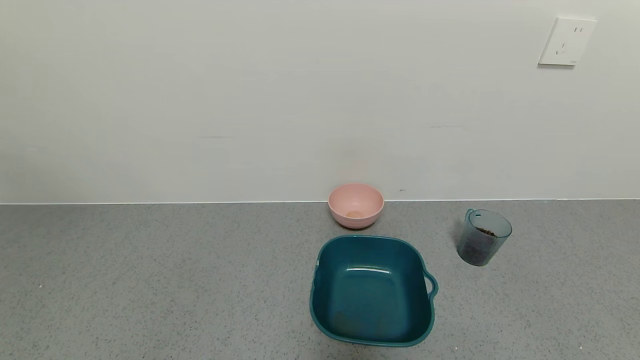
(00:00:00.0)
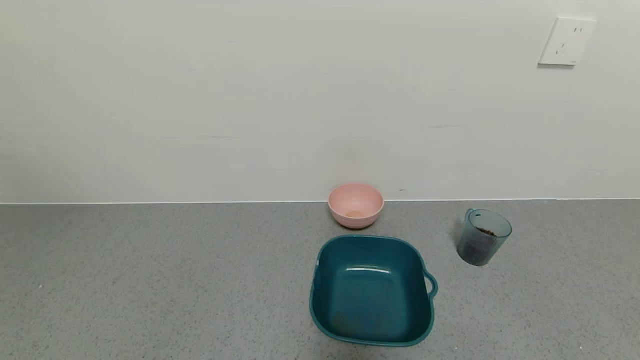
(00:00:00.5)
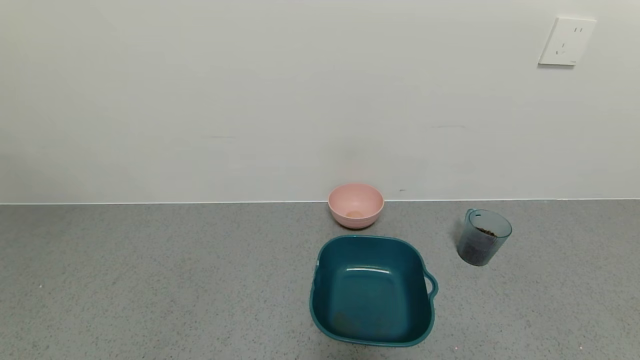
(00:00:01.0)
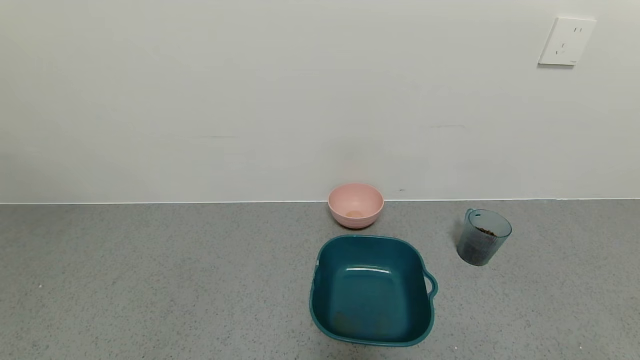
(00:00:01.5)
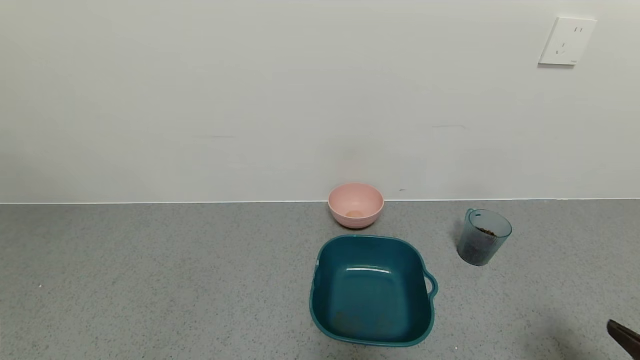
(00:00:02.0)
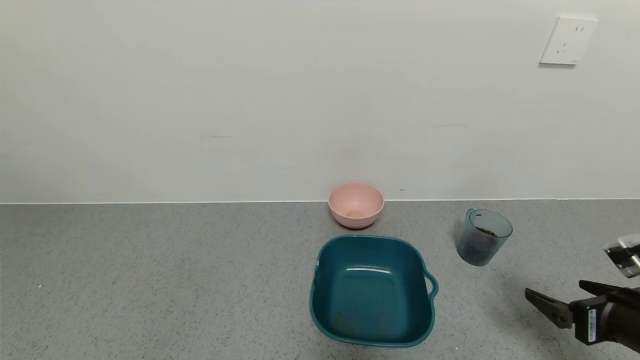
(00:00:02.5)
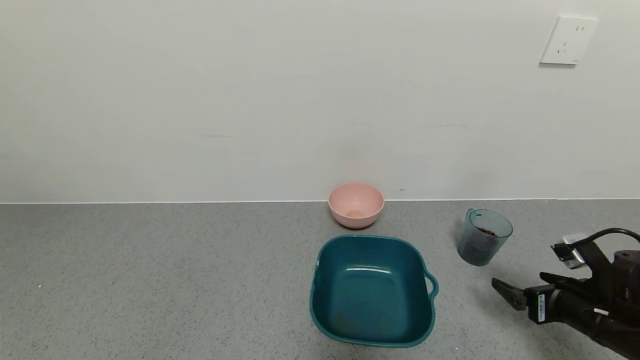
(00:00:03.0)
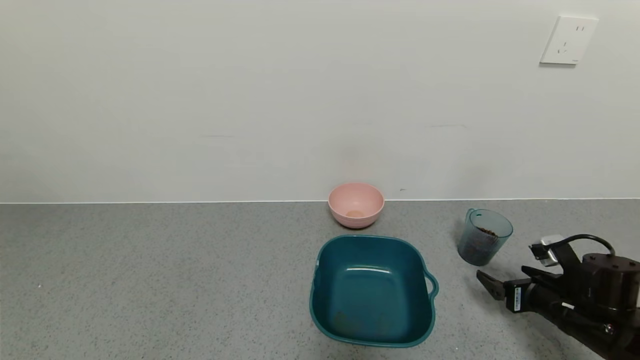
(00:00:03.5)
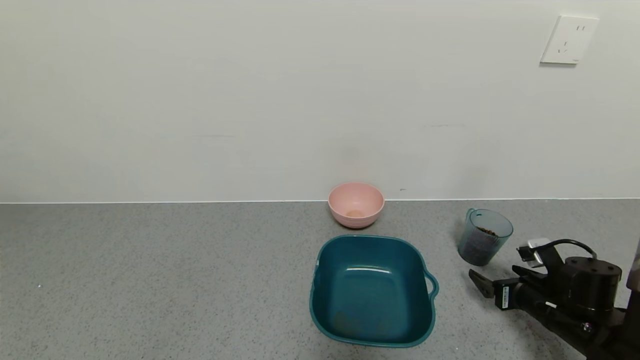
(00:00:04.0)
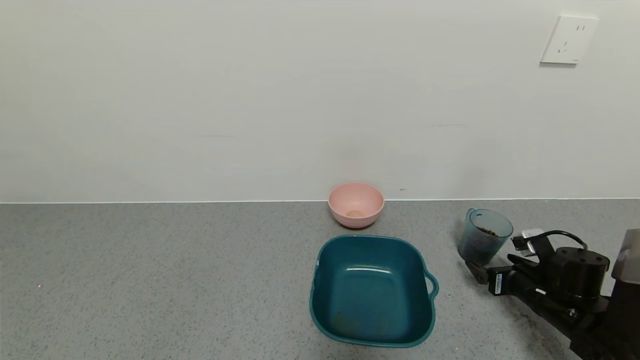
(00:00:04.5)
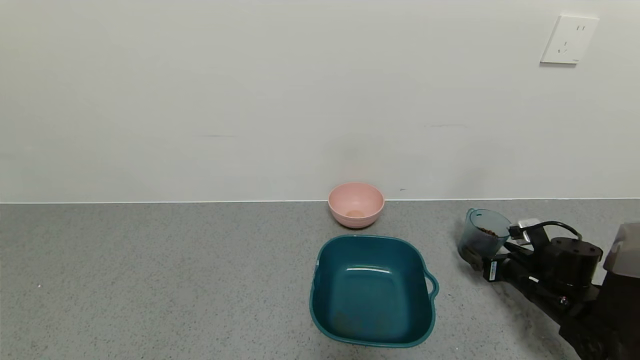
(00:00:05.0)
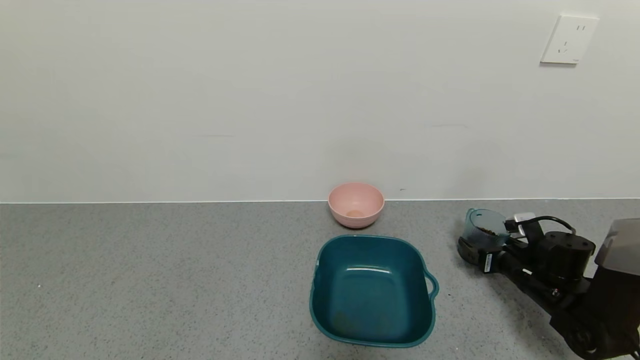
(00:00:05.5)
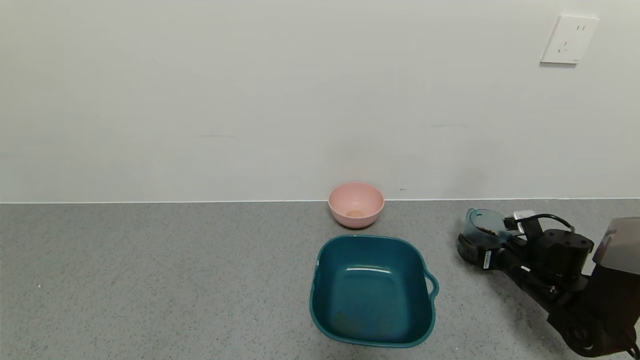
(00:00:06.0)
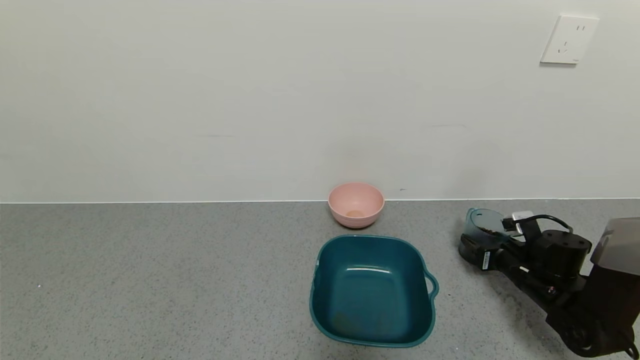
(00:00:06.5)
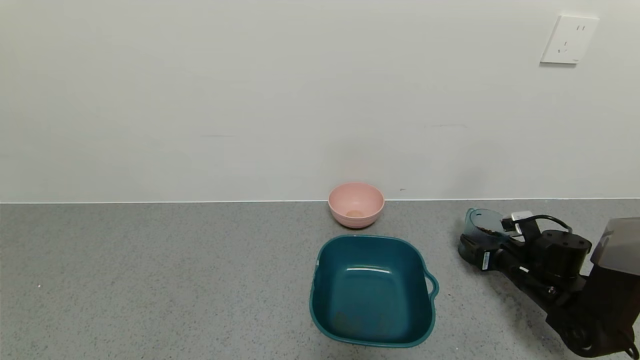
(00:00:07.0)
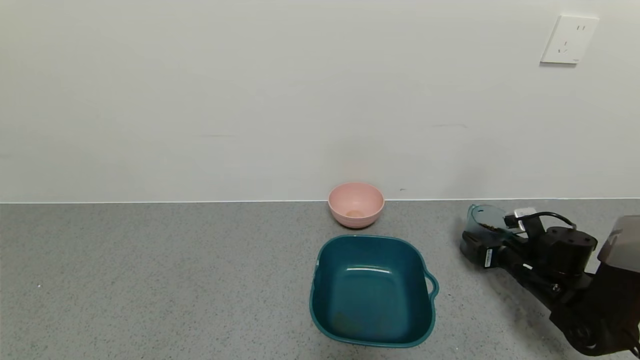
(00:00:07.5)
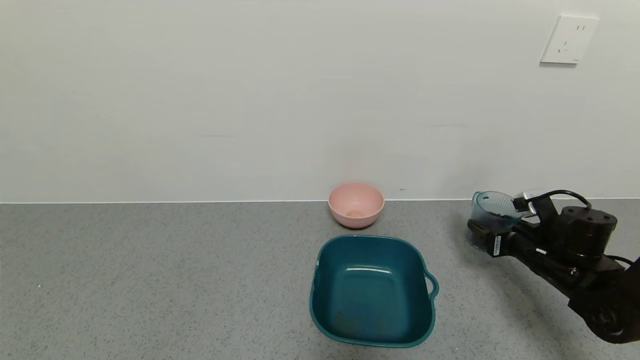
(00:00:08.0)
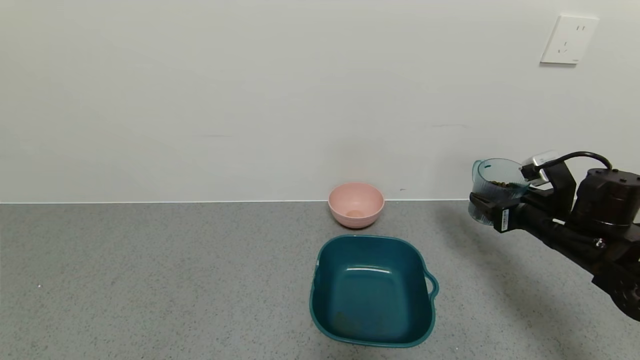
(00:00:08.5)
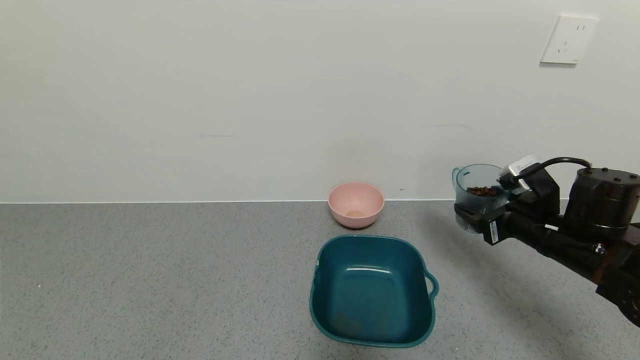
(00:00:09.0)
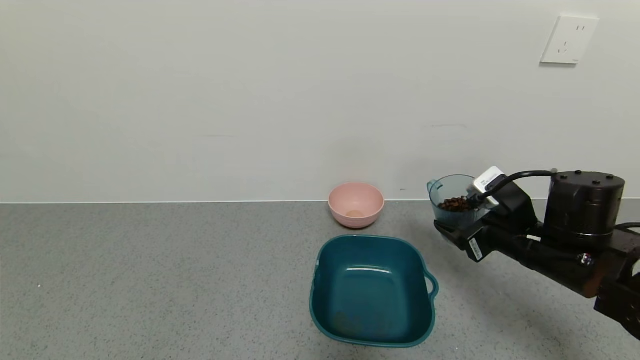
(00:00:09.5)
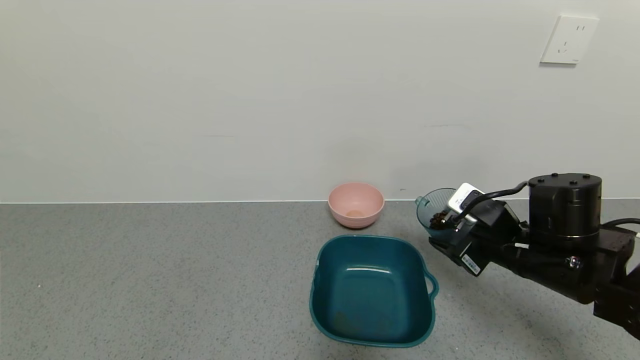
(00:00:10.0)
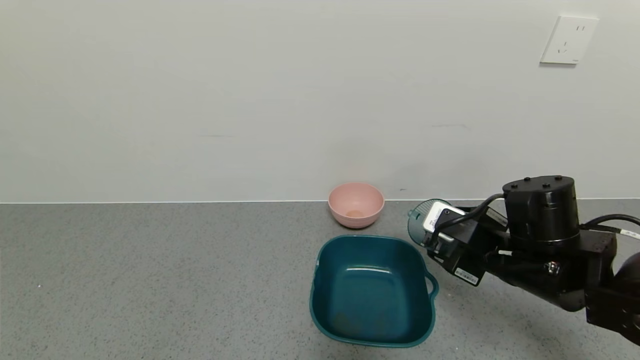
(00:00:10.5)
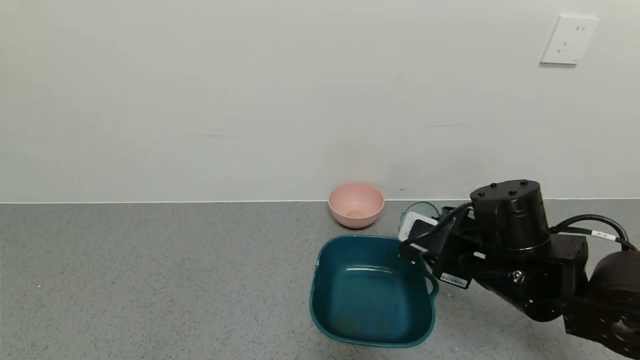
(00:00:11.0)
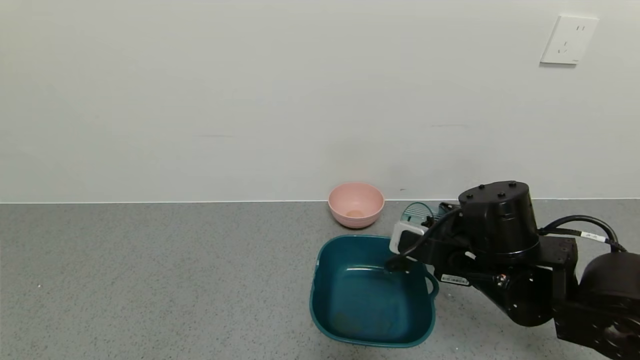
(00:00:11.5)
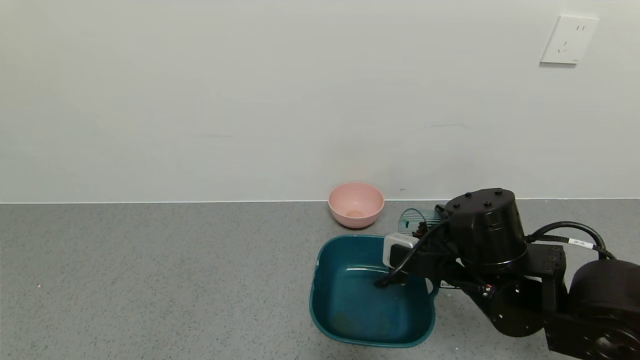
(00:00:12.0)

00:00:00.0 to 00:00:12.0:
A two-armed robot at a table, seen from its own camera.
Task of the whole recording: use a gripper to pick up the cup and pour the solid into a bowl or tray.
Step, 00:00:00.0 to 00:00:07.0: Grasp the glass of coffee beans with the right gripper.
00:00:00.0 to 00:00:02.0: The right gripper goes approximately 15 cm forward and upward.
00:00:02.0 to 00:00:04.0: The right gripper shifts about 25 cm forward and downward.
00:00:04.0 to 00:00:06.0: The right gripper heads forward, covering some 5 cm.
00:00:06.0 to 00:00:08.0: The right gripper shifts approximately 5 cm upward, and closes.
00:00:08.0 to 00:00:10.0: The right gripper is displaced to the left, upward and backward by roughly 15 cm.
00:00:10.0 to 00:00:12.0: The right gripper is displaced to the left by about 10 cm.

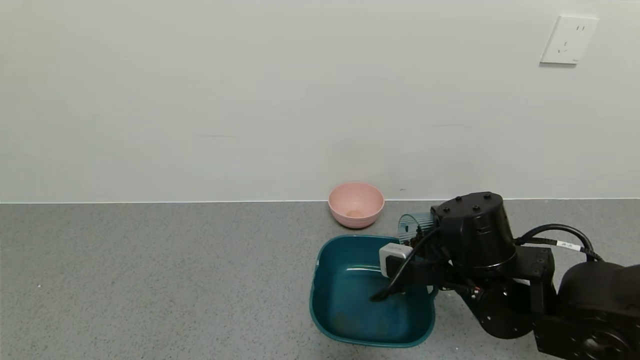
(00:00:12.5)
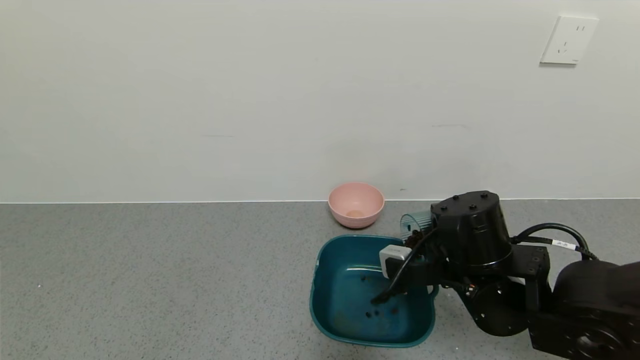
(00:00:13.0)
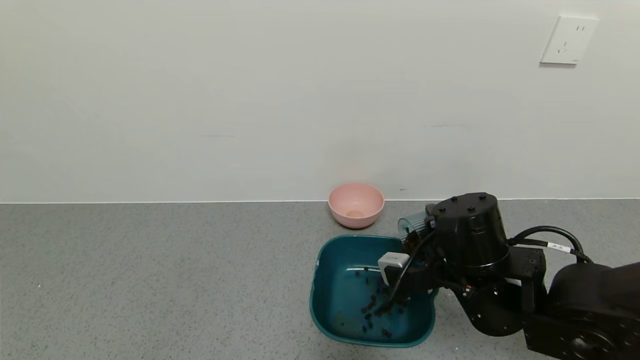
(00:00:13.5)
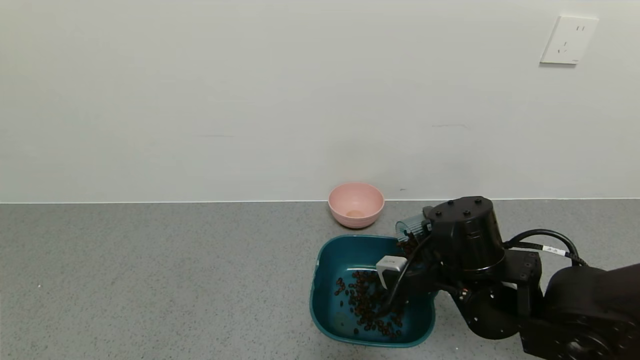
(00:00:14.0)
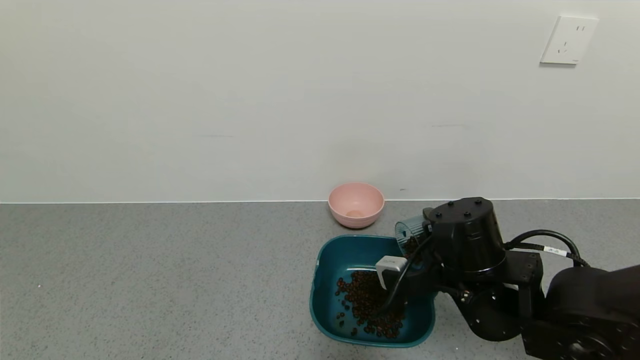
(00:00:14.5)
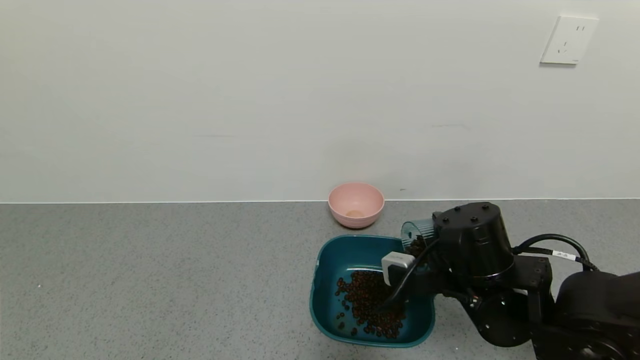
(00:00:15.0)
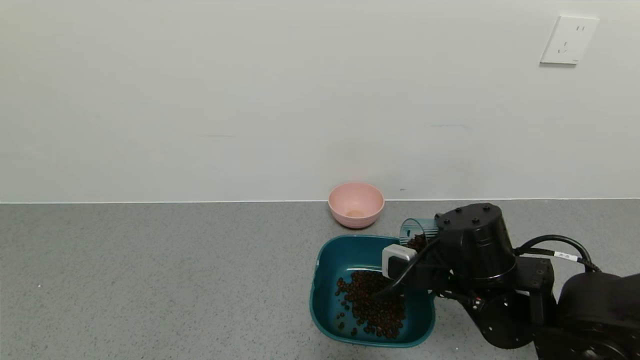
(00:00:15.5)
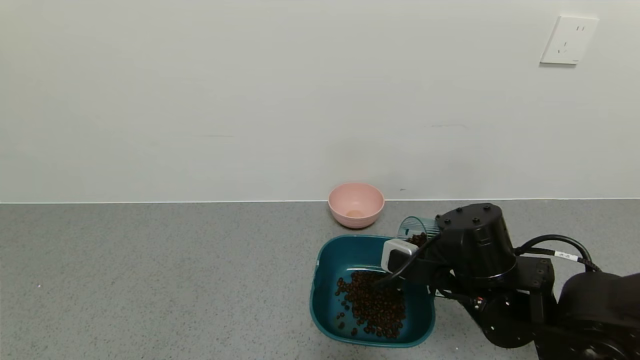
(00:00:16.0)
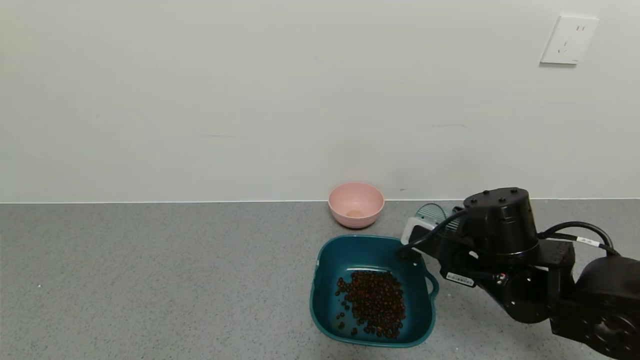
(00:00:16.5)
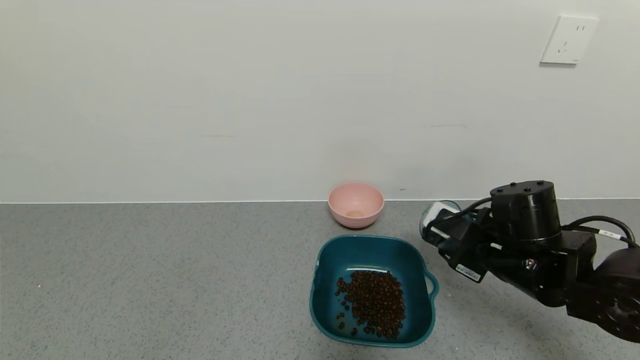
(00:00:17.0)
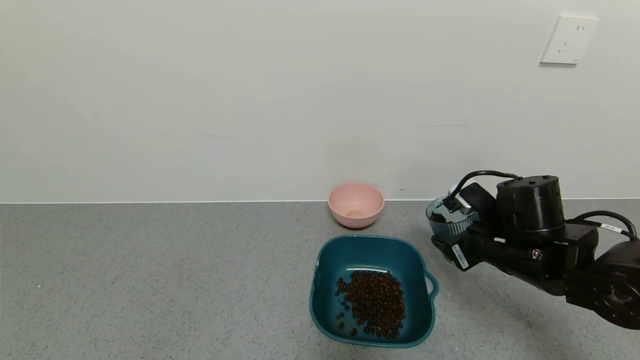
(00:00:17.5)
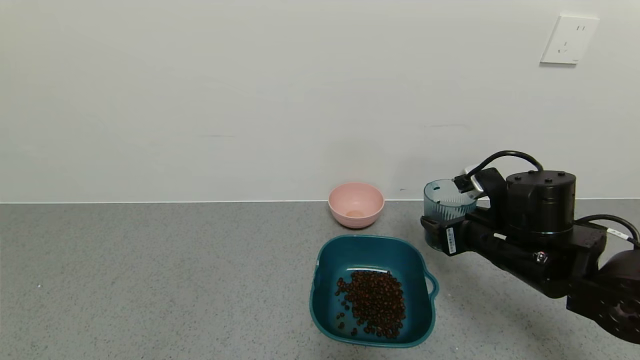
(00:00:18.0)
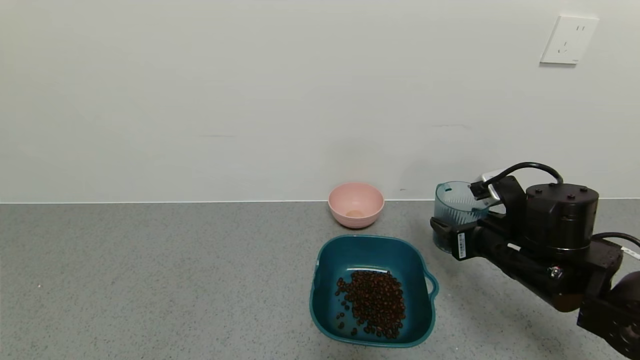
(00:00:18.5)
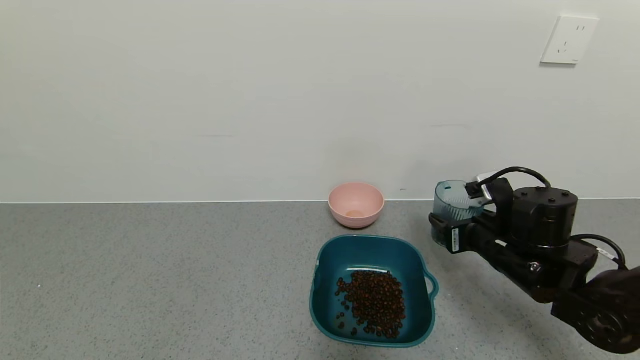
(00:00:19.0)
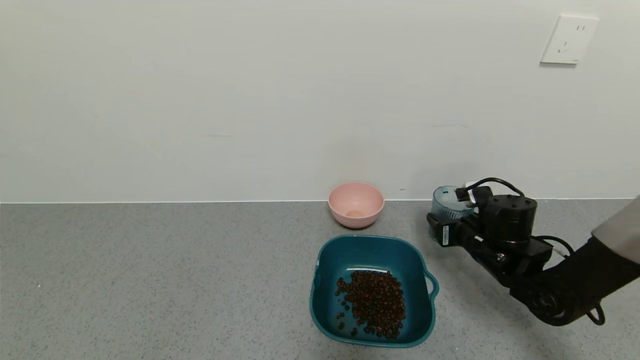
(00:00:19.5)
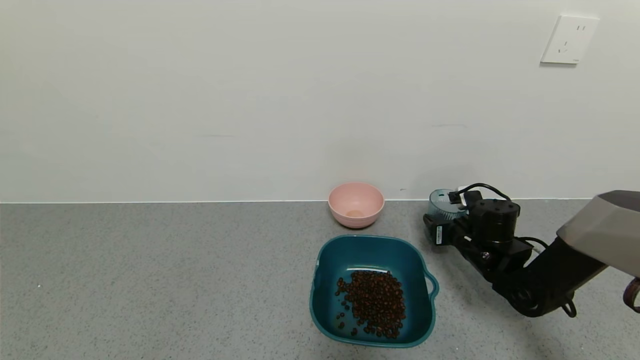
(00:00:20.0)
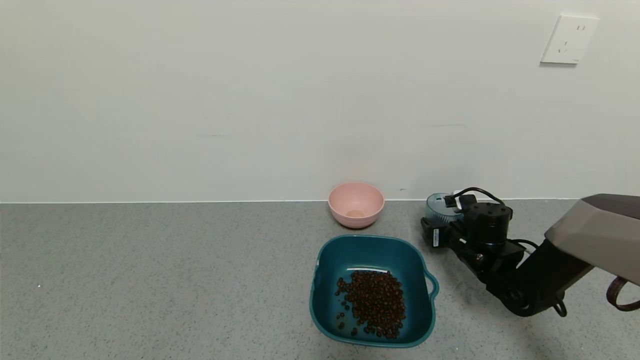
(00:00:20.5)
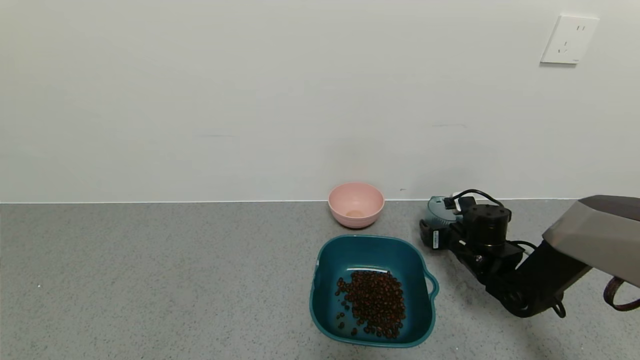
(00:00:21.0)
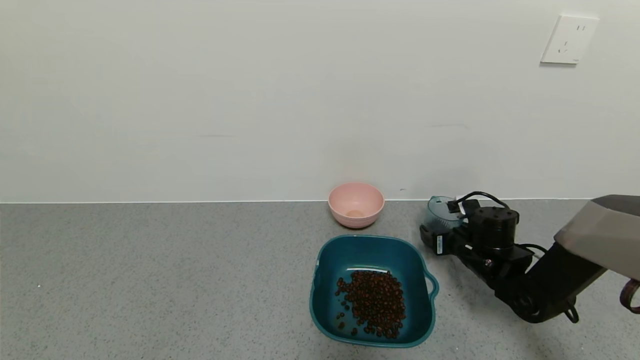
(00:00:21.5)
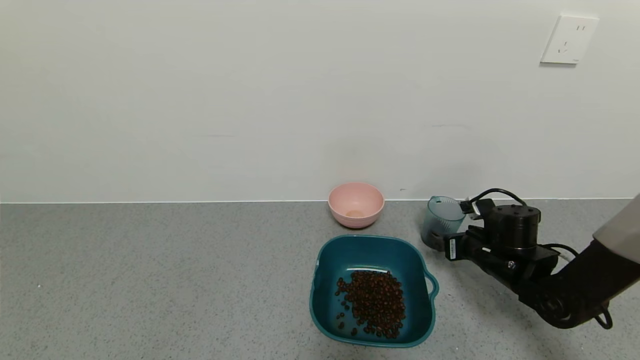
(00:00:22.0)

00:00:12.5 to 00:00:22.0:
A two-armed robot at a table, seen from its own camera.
Task of the whole recording: use a gripper to pick up the cup and pour the solid into a bowl or tray.
Step, 00:00:12.5 to 00:00:17.0: Pour the coffee beans into the green bowl with the right gripper.
00:00:12.5 to 00:00:14.5: The grippers move only a little.
00:00:18.0 to 00:00:20.0: The right gripper shifts roughly 15 cm downward and forward.
00:00:20.0 to 00:00:22.0: The right gripper opens up.
